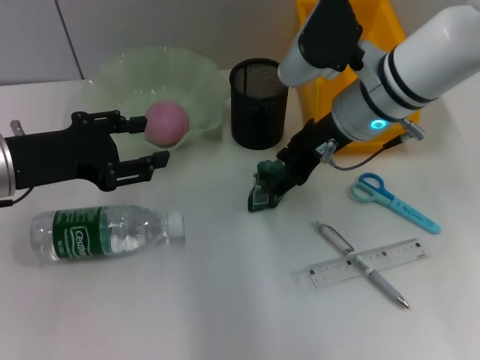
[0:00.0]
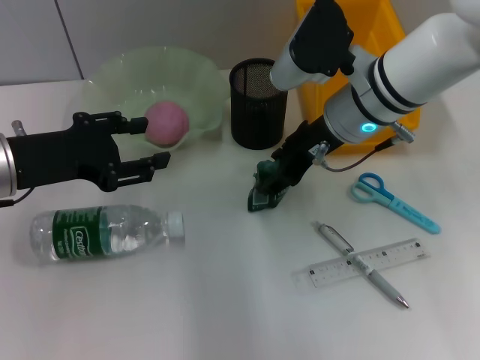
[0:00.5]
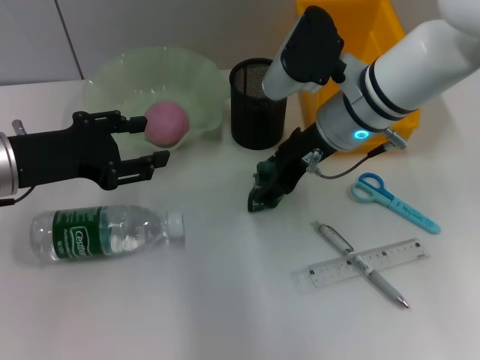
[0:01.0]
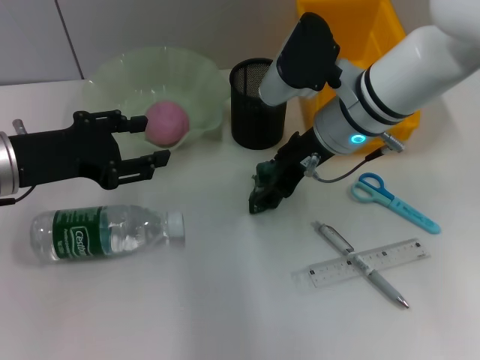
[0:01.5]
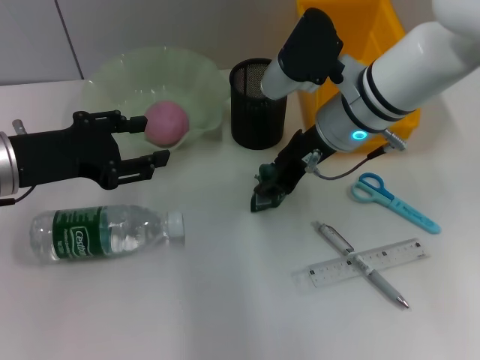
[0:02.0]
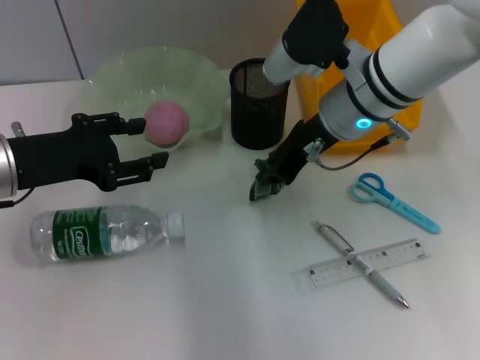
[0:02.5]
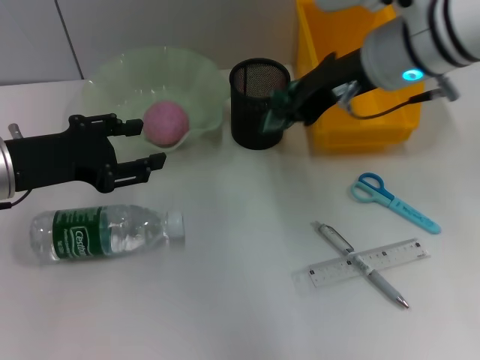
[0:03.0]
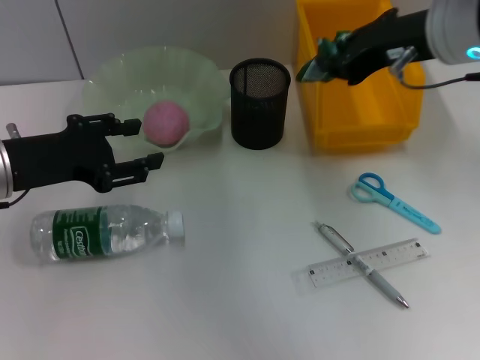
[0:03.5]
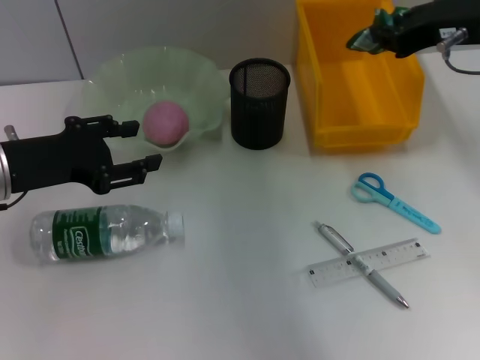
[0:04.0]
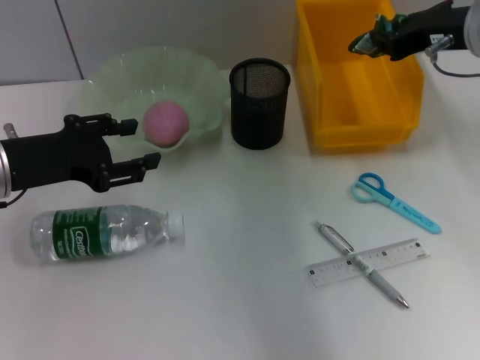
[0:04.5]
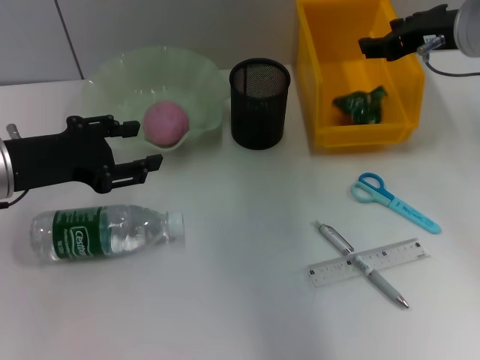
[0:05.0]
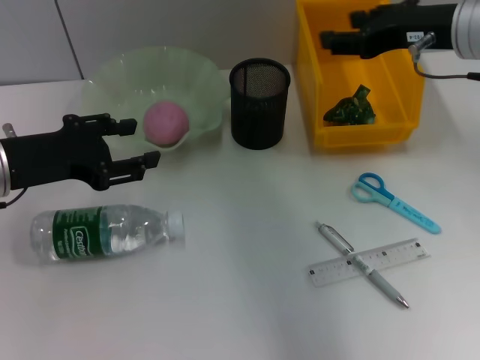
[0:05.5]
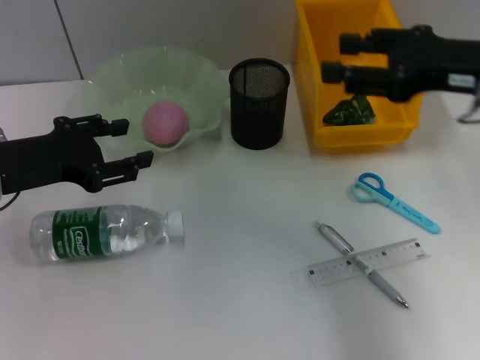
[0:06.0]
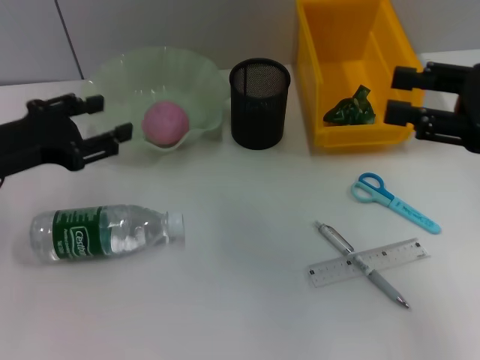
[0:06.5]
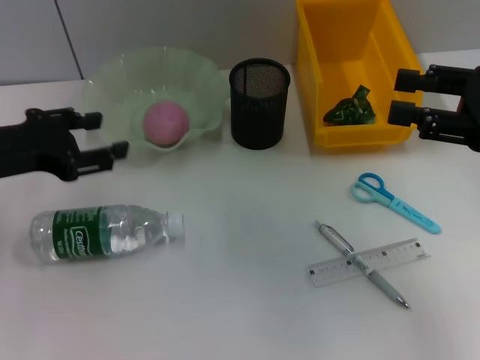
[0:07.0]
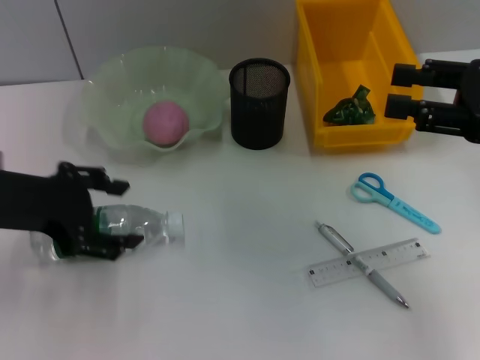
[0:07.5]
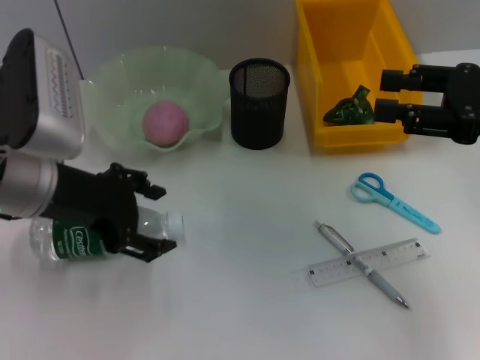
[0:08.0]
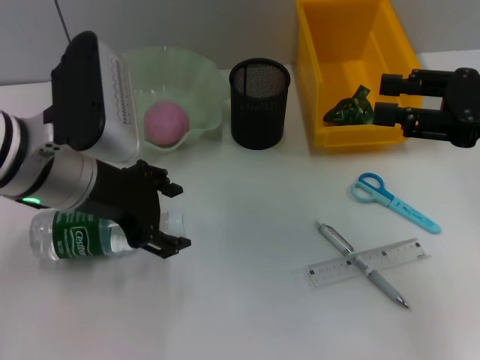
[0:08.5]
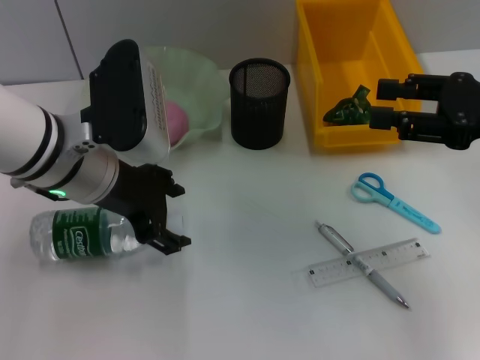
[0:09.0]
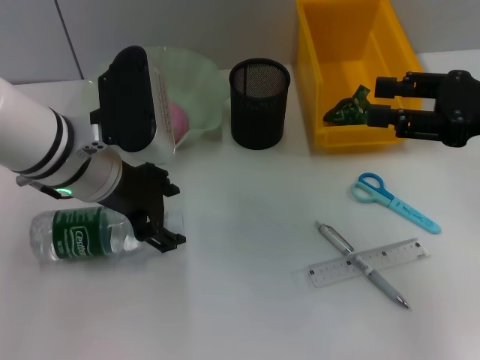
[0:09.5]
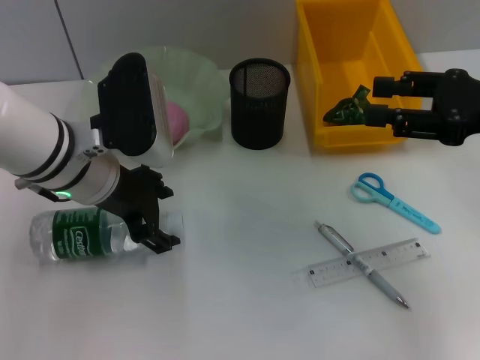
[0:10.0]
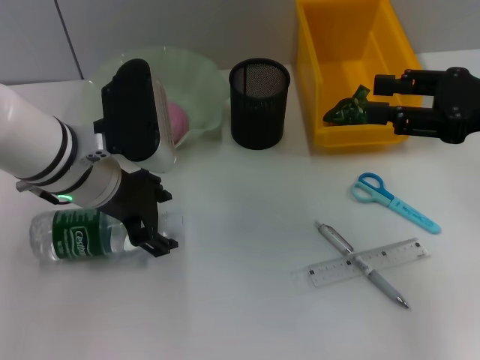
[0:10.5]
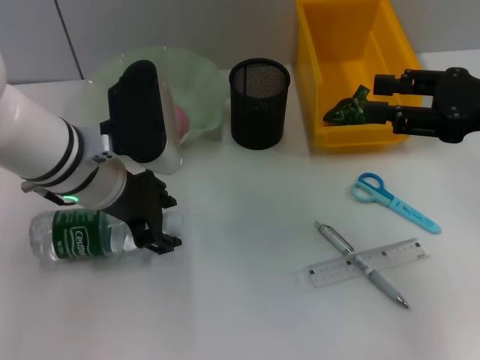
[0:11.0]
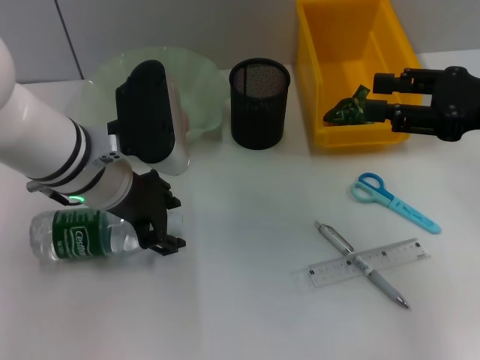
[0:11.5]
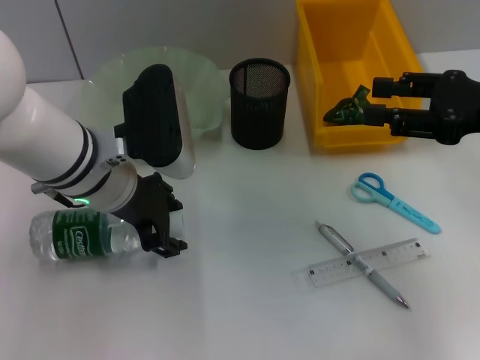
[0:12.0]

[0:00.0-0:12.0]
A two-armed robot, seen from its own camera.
Step, 0:00.0 to 0:02.0: Grab the plastic with the right hand.
Step, 0:02.5 to 0:05.0: Place the plastic into the trash can with the right hand.
0:00.0 to 0:02.0: The grippers move only a little.
0:02.0 to 0:04.0: The right gripper shifts some 15 cm to the right and upward, and closes.
0:04.0 to 0:06.0: The right gripper changes place by some 5 cm, and opens its fingers.
0:06.0 to 0:08.0: The right gripper moves about 5 cm. Meanwhile the left gripper heads to the right, covering about 5 cm.
0:08.0 to 0:10.0: The left gripper moves about 5 cm.
0:10.0 to 0:12.0: There are only small adjustments of the grippers.

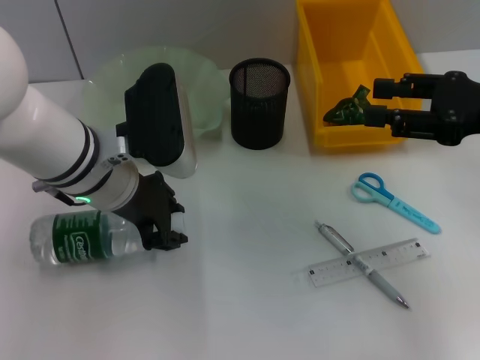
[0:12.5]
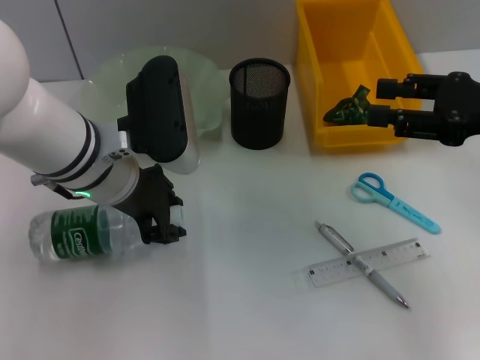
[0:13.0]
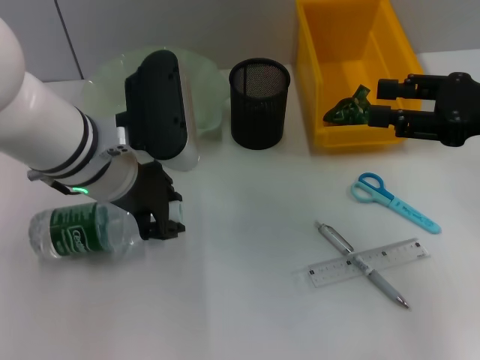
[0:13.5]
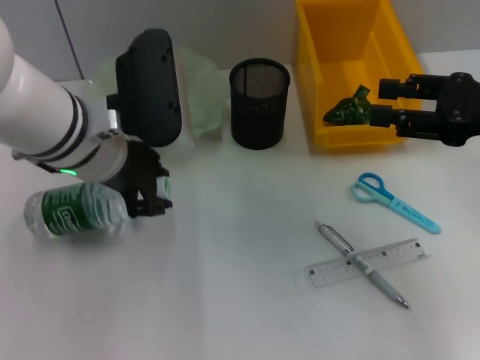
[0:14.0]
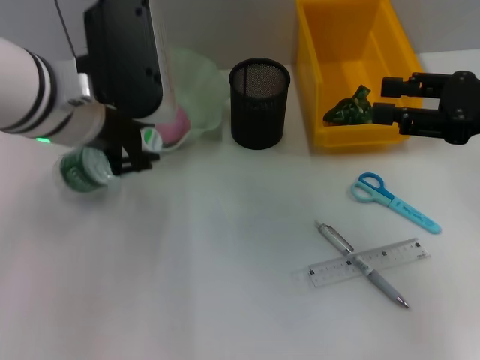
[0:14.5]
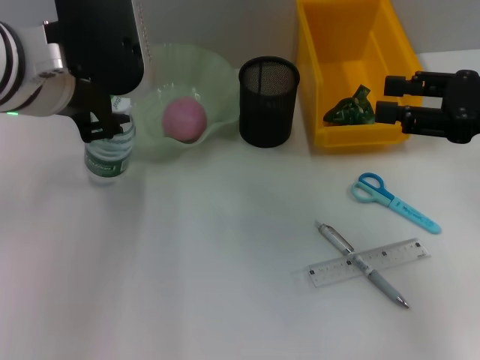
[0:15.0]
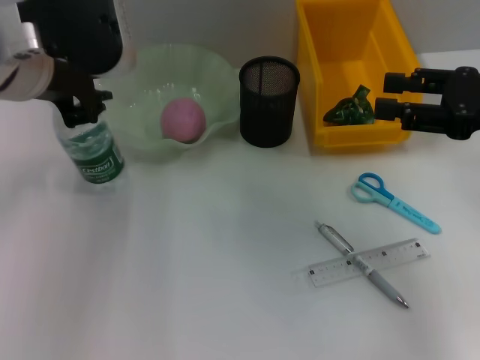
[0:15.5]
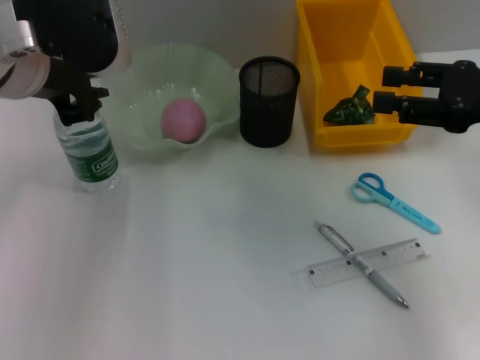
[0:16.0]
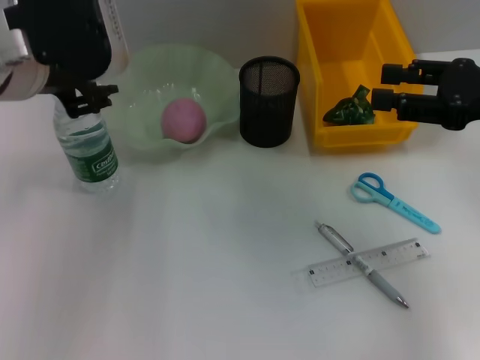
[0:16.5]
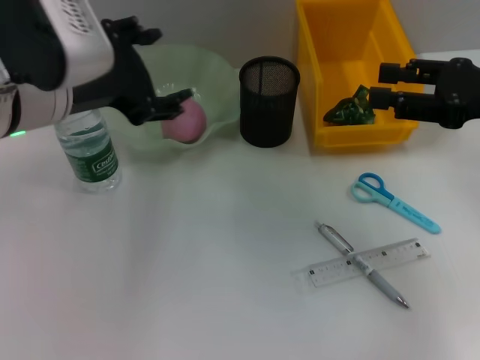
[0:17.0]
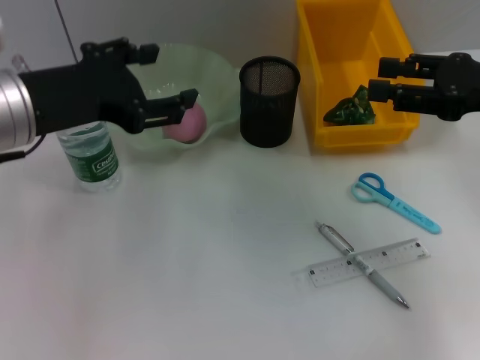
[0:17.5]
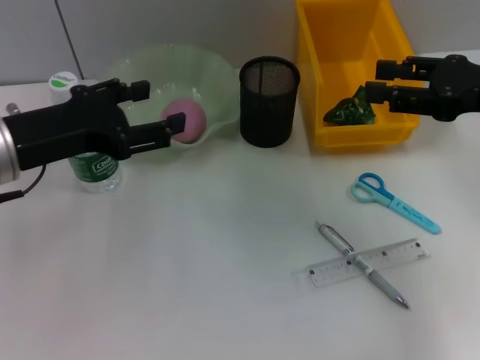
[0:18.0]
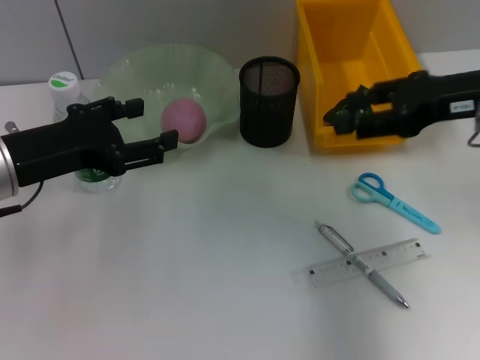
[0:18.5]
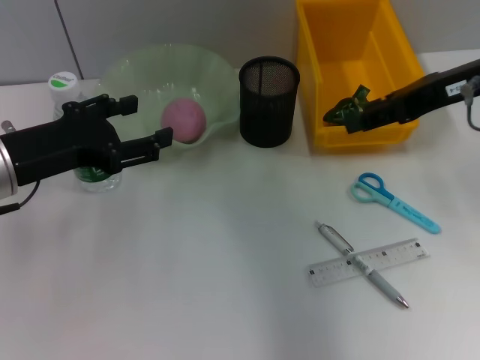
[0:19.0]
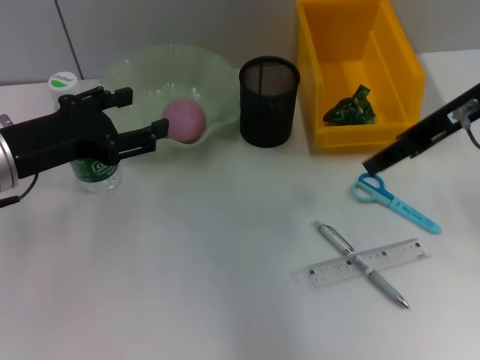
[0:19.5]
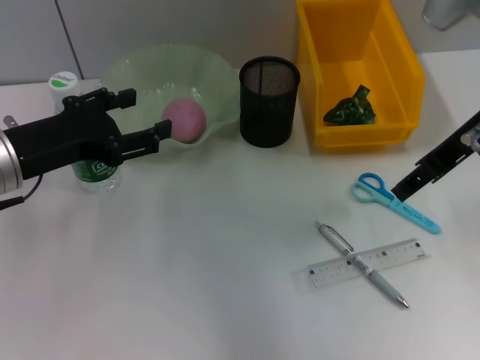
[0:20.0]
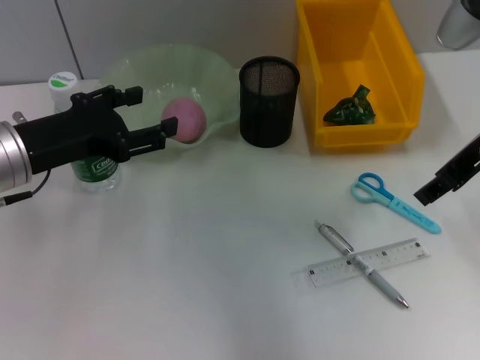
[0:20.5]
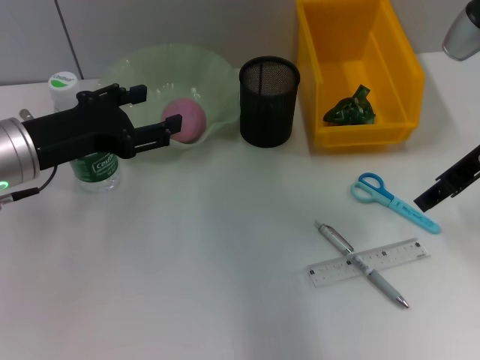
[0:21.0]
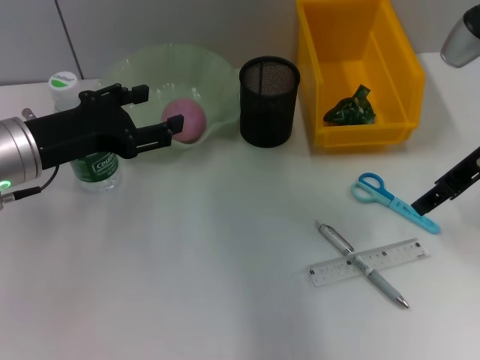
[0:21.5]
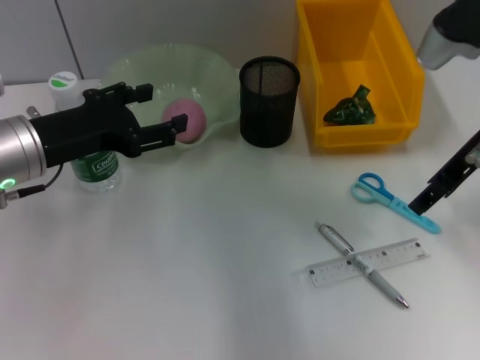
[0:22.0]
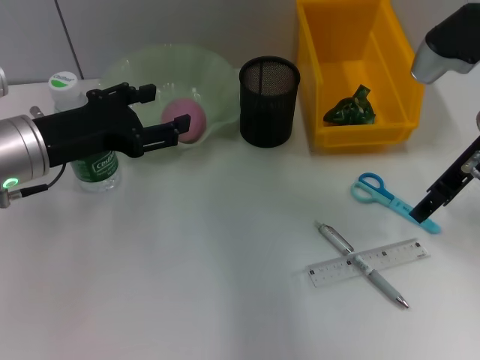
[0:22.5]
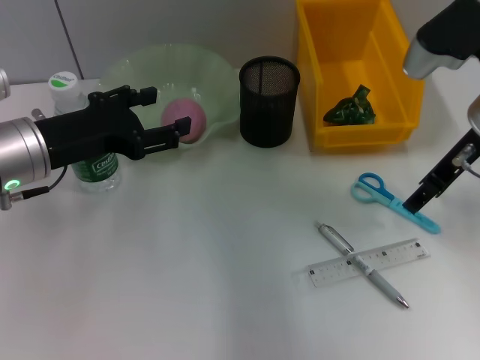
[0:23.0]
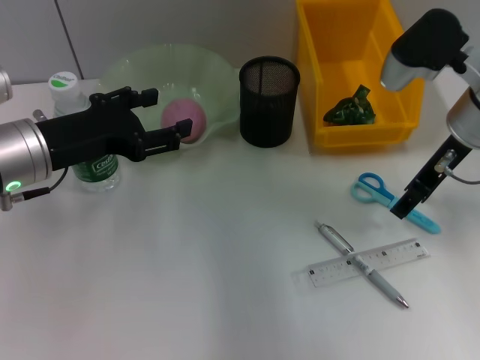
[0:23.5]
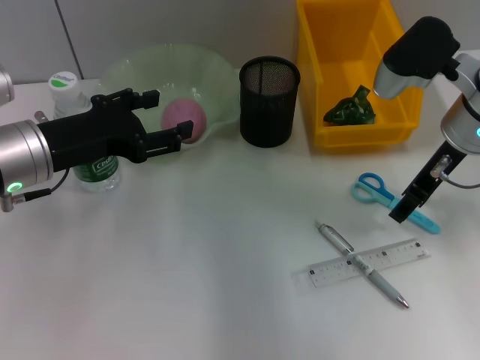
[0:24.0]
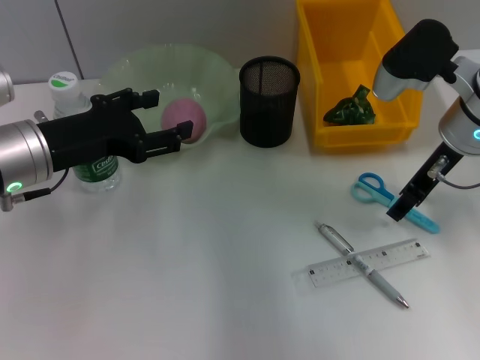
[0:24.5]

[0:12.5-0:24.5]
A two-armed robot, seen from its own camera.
Step, 0:13.0 to 0:17.0: Place the water bottle on the table with the left hand.
0:12.5 to 0:14.5: The left gripper heads upward, covering some 10 cm.
0:14.5 to 0:16.5: The grippers stay close to where they were, moving slightly.
0:16.5 to 0:18.5: The right gripper shifts by approximately 5 cm, while the left gripper moves downward and to the left, about 15 cm, and opens.
0:20.5 to 0:22.5: The right gripper changes place by approximately 5 cm.
0:22.5 to 0:24.5: The grippers make only small movements.

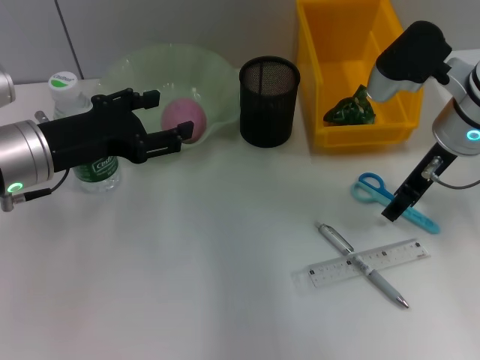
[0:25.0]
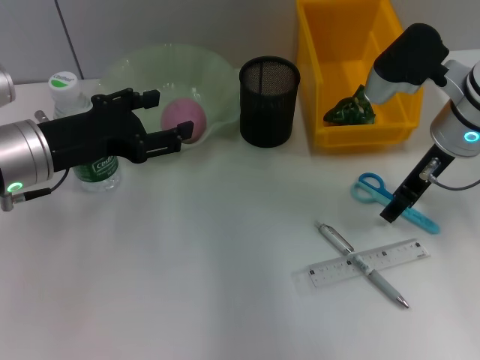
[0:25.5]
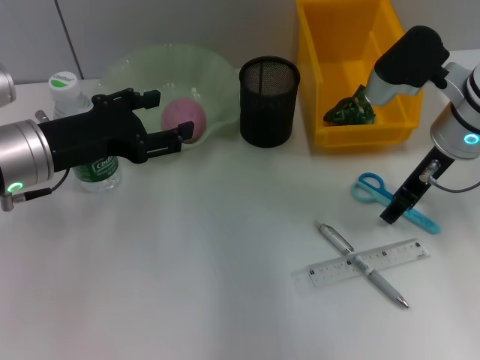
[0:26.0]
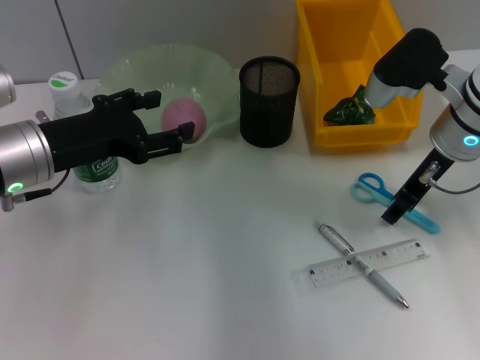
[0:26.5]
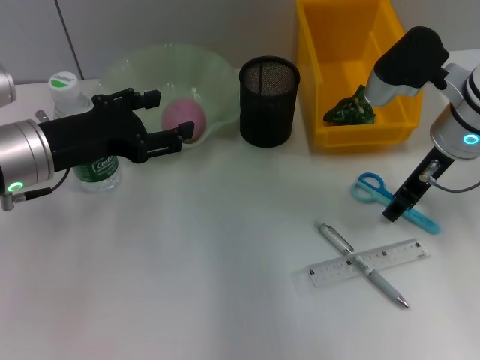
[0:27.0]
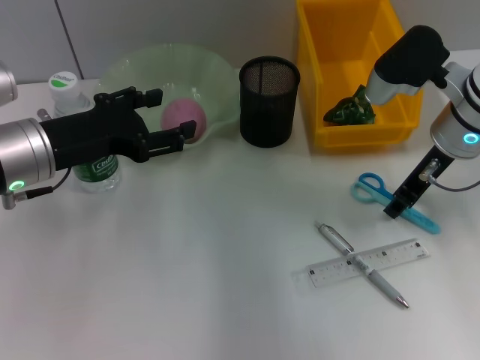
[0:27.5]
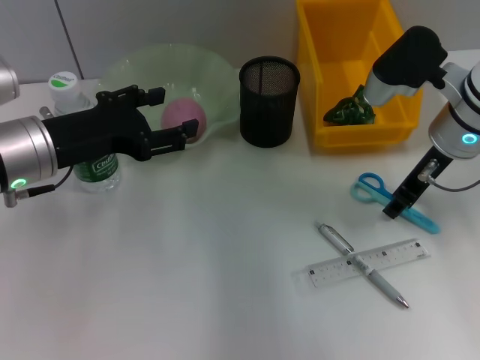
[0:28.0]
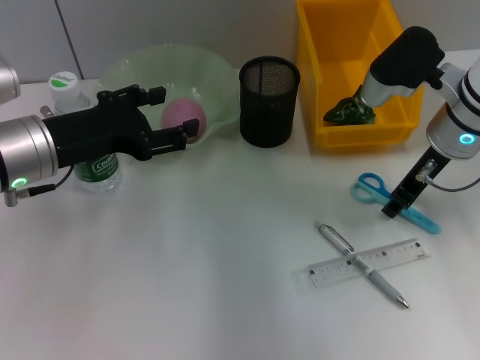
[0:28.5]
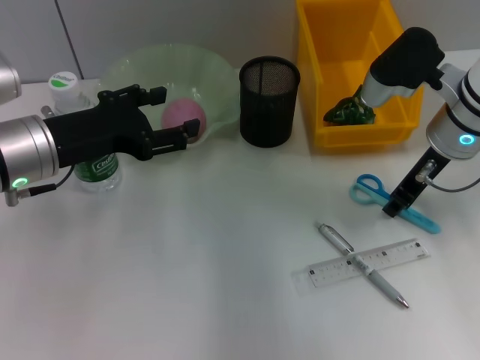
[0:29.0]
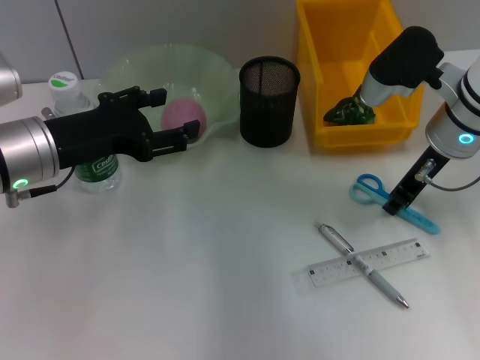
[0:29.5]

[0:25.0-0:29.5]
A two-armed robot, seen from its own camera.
0:25.0 to 0:27.0: Both grippers stay put.
0:27.0 to 0:29.5: The right gripper closes up.
